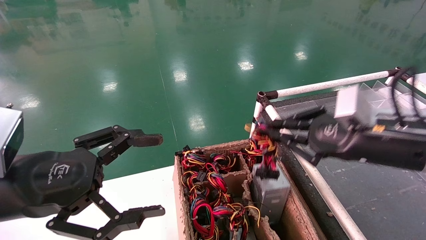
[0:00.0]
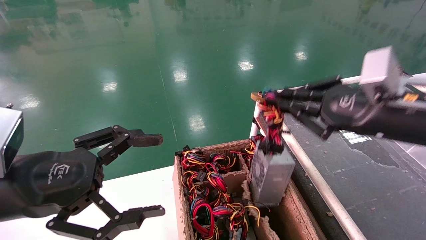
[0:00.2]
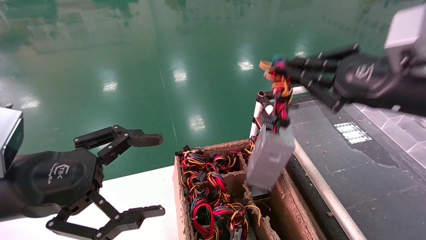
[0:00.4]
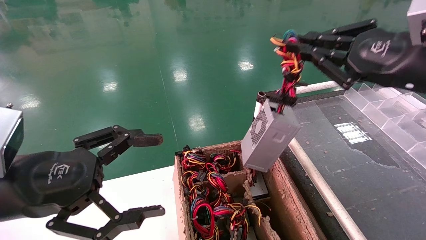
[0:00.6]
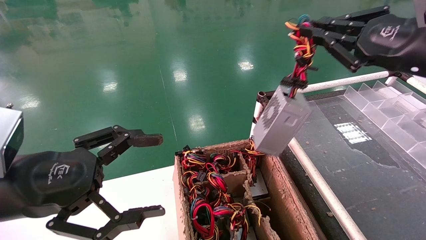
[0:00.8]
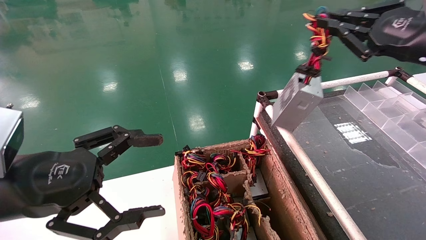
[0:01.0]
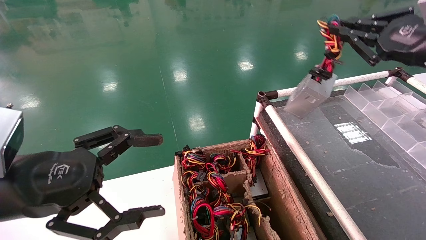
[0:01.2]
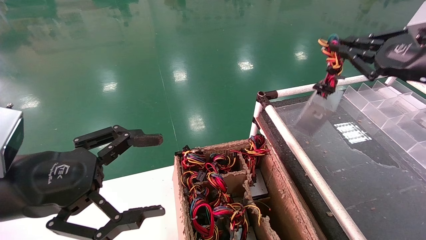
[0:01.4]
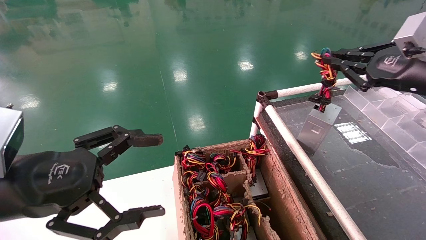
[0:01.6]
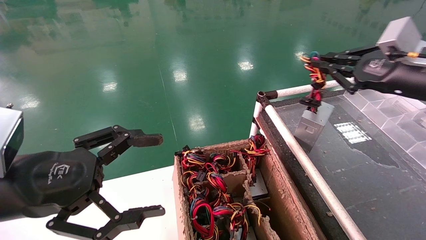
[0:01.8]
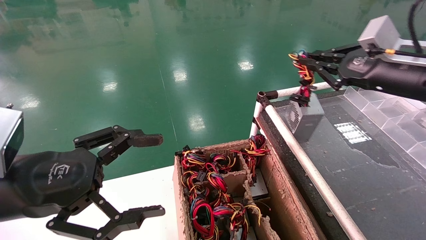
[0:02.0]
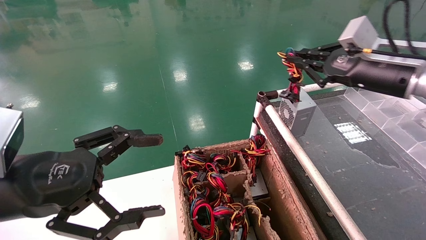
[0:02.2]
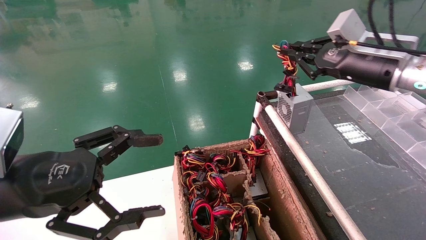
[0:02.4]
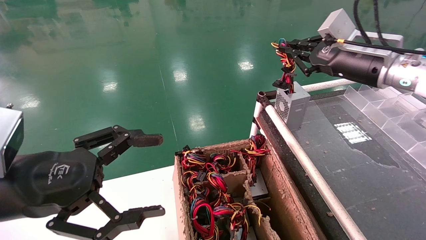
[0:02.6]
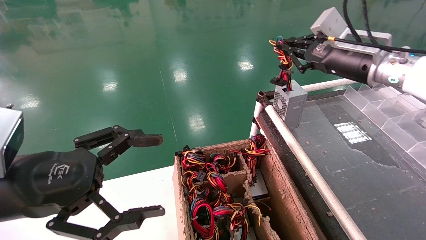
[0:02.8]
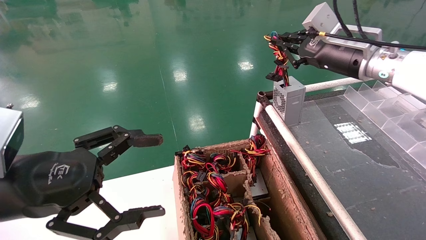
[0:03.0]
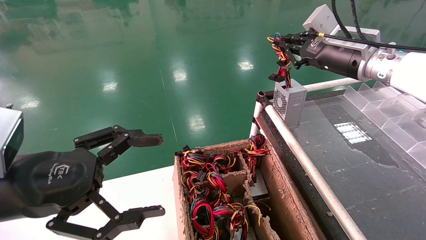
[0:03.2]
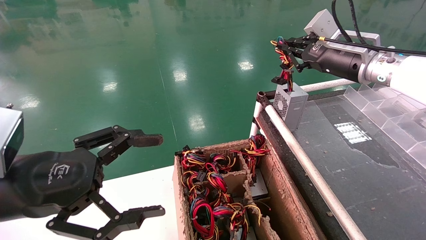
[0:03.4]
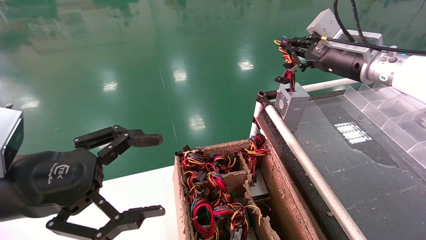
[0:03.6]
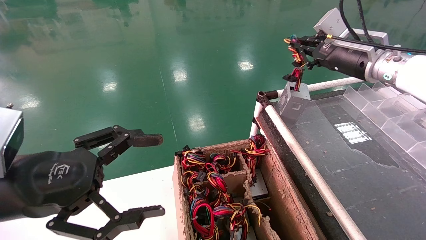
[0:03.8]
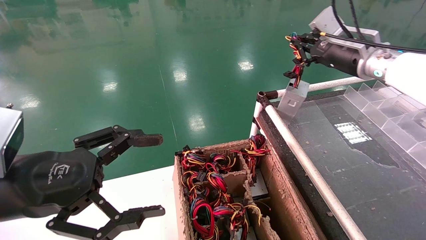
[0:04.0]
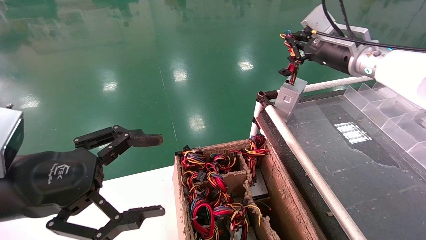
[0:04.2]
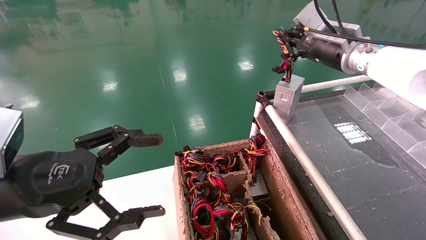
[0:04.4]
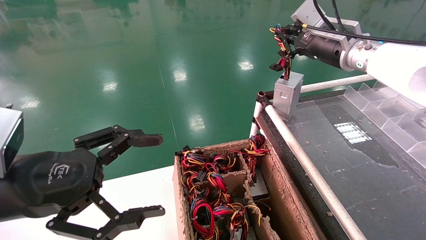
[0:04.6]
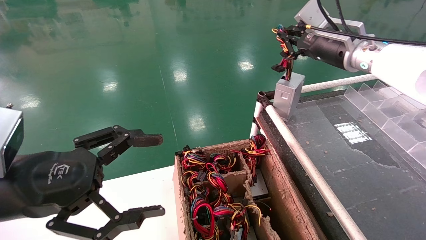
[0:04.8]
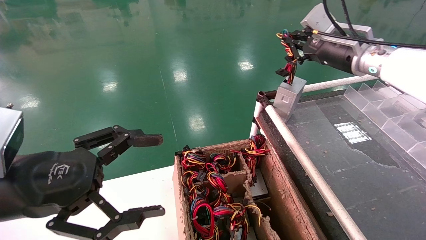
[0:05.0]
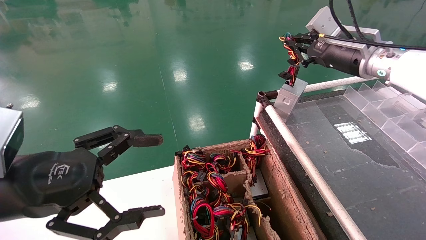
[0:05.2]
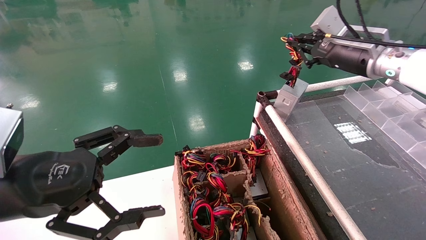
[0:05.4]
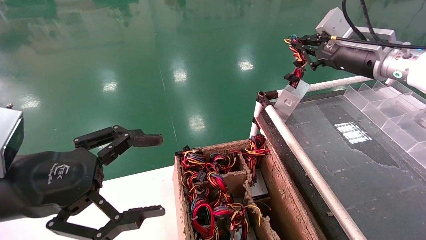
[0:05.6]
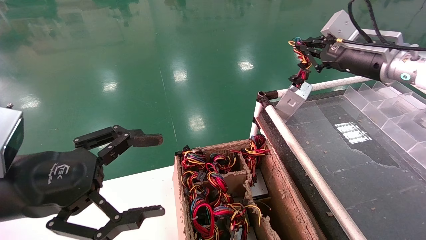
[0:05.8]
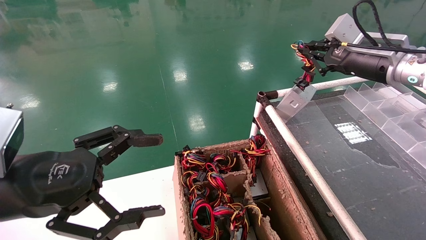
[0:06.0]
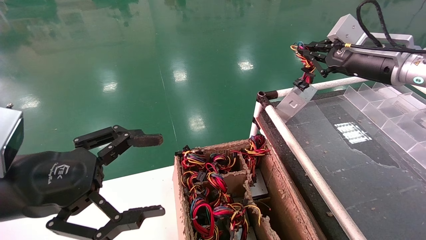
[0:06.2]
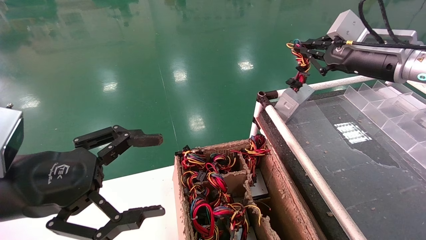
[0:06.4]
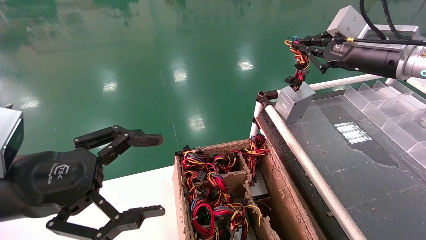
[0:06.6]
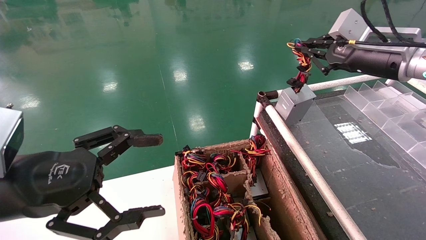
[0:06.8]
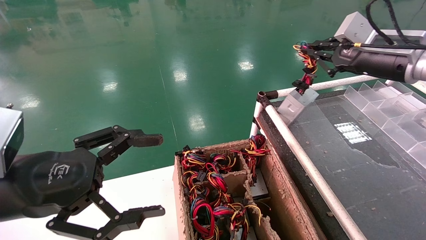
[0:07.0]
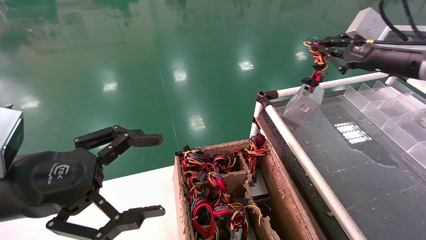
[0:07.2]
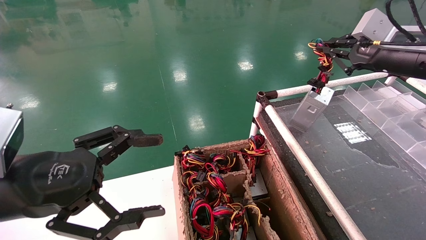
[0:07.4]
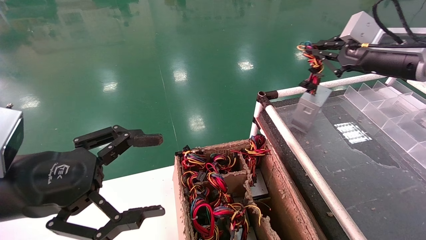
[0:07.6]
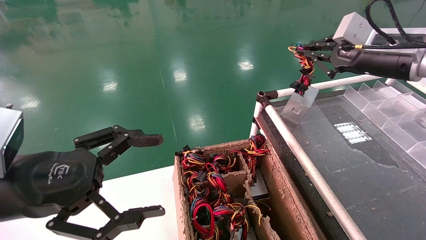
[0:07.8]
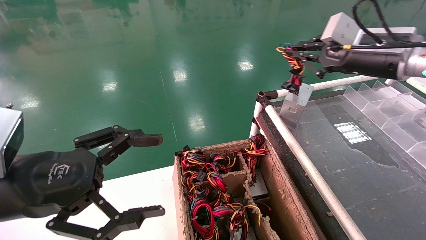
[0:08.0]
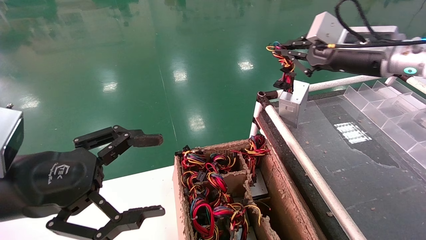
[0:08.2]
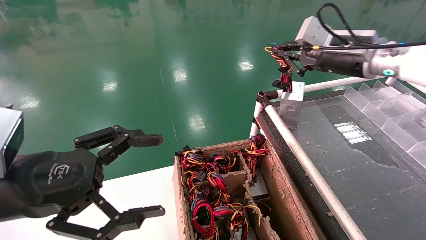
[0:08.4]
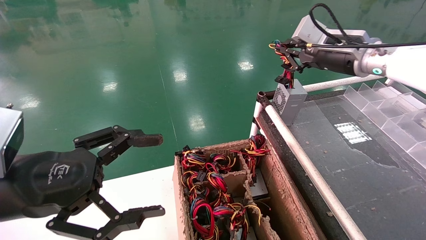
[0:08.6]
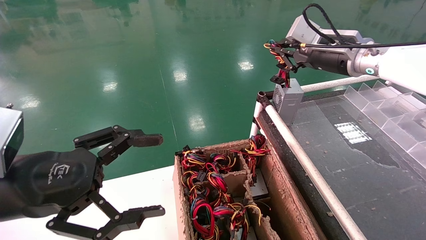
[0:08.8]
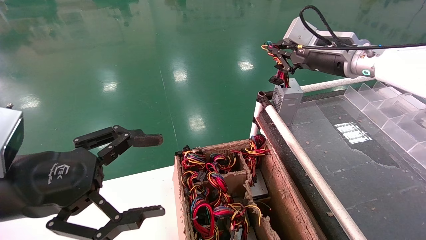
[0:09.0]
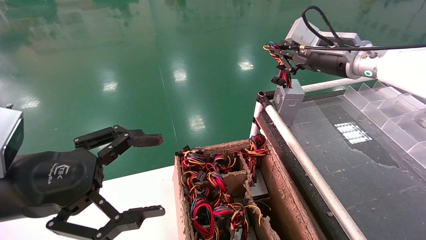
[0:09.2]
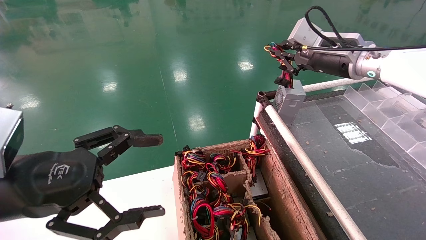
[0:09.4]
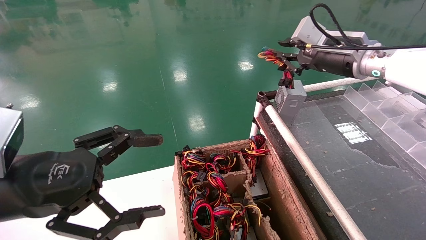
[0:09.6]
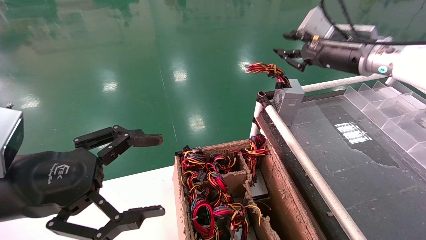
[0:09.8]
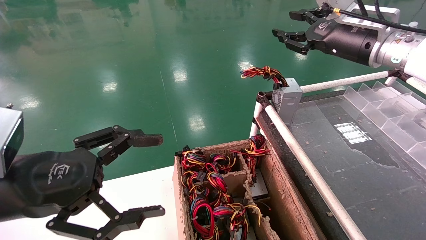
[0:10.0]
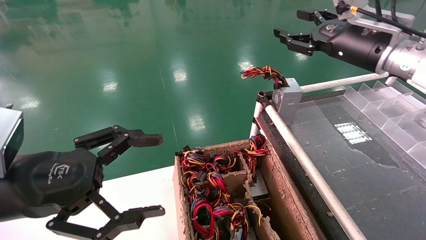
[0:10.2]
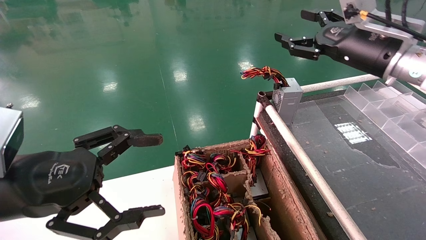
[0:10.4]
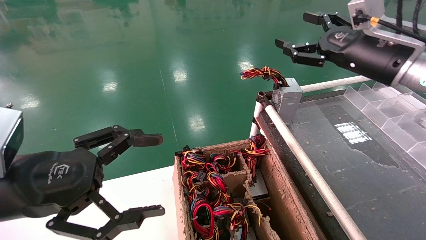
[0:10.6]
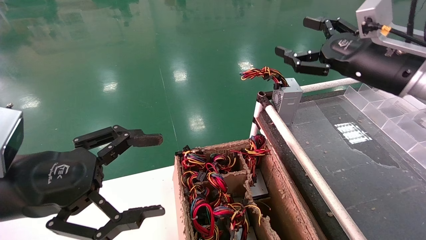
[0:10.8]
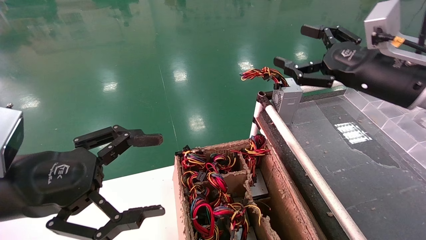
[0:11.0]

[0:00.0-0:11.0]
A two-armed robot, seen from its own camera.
Step, 0:00.0 to 0:09.4: Place the power supply on the operating table.
0:00.0 to 0:01.6: The right gripper heads to the right, upward and forward, covering about 15 cm.
0:01.6 to 0:03.2: The right gripper shifts approximately 15 cm to the left and forward.
0:03.2 to 0:04.8: There are only small adjustments of the grippers.
0:04.8 to 0:06.2: The right gripper moves to the right, roughly 5 cm.
0:06.2 to 0:07.8: The grippers make only small movements.
0:07.8 to 0:09.4: The right gripper heads to the left and forward, covering roughly 10 cm.
0:09.4 to 0:11.0: The right gripper shifts about 10 cm backward, and opens its fingers.

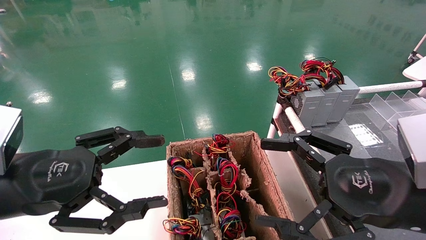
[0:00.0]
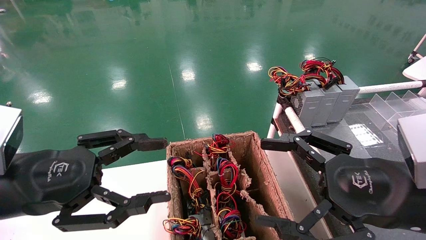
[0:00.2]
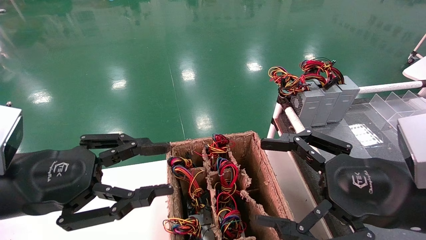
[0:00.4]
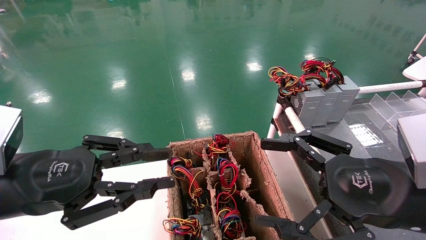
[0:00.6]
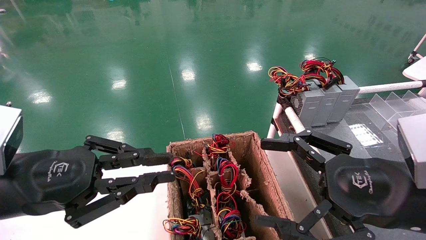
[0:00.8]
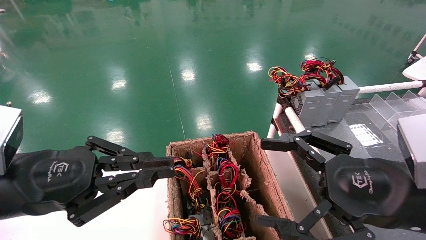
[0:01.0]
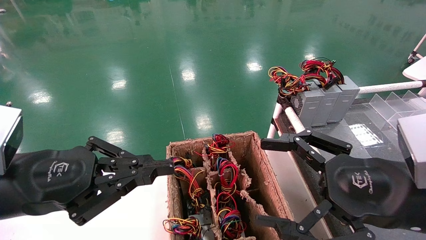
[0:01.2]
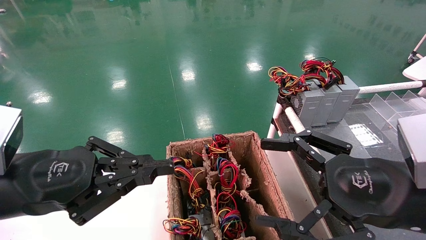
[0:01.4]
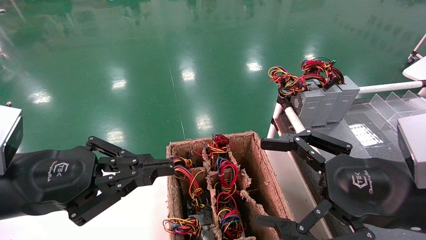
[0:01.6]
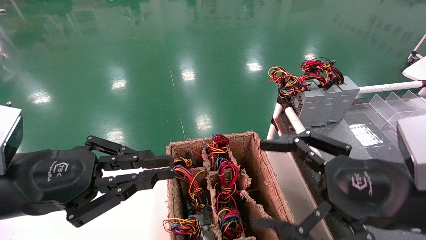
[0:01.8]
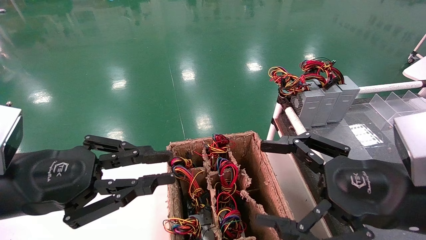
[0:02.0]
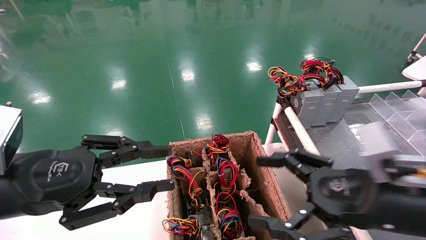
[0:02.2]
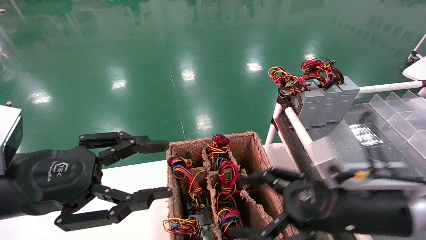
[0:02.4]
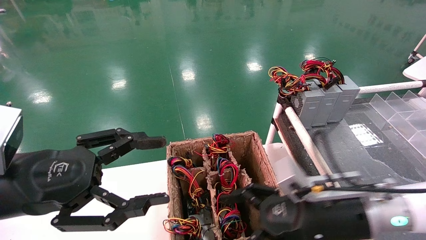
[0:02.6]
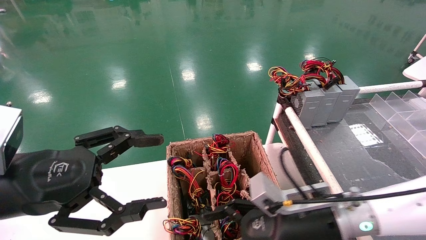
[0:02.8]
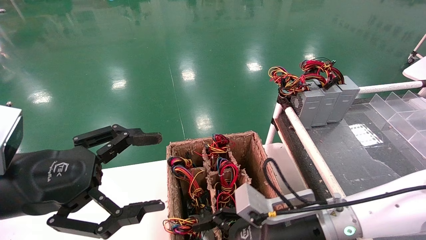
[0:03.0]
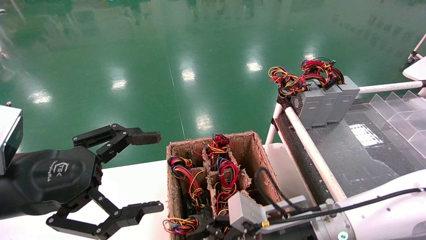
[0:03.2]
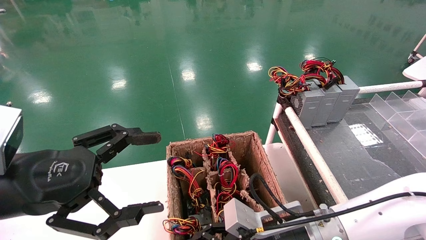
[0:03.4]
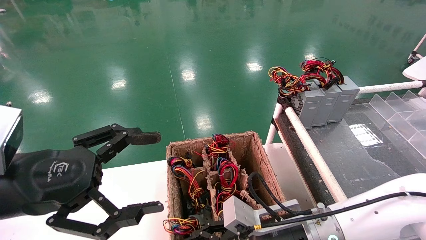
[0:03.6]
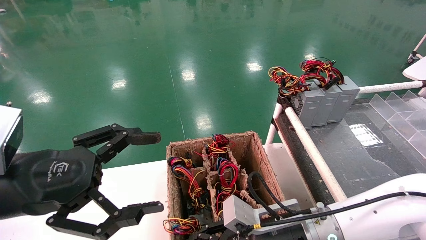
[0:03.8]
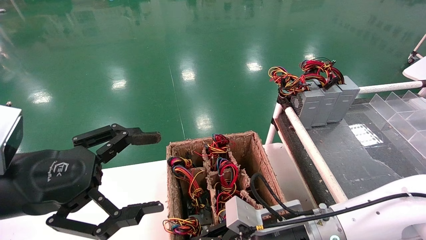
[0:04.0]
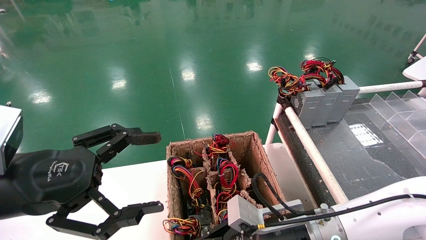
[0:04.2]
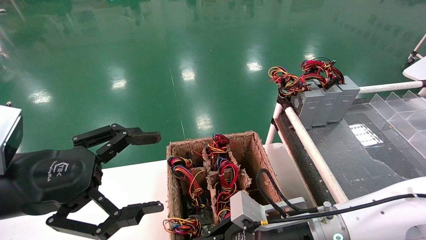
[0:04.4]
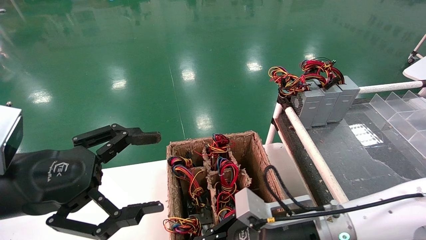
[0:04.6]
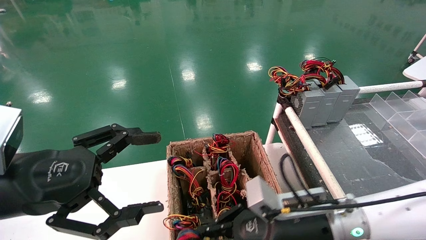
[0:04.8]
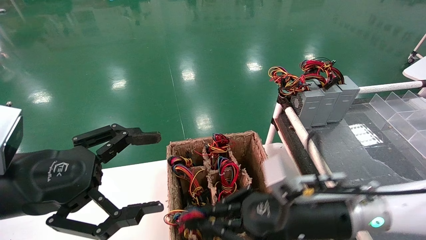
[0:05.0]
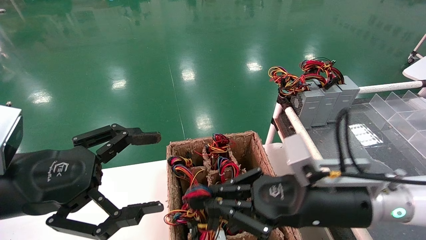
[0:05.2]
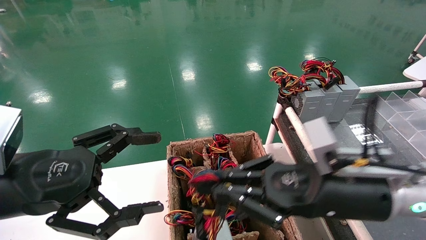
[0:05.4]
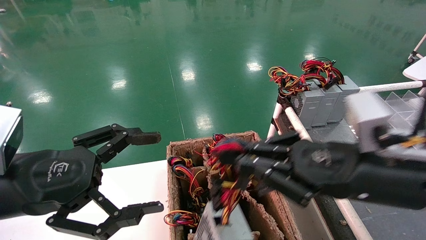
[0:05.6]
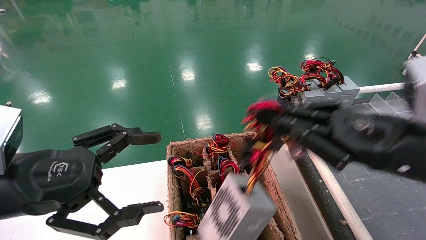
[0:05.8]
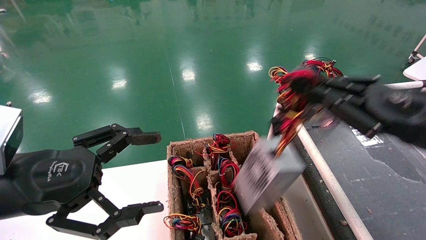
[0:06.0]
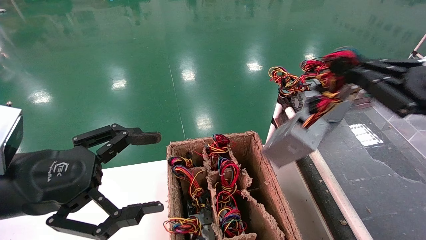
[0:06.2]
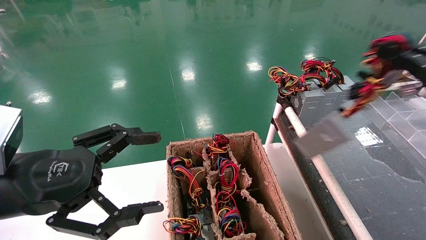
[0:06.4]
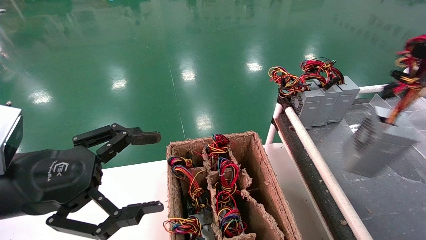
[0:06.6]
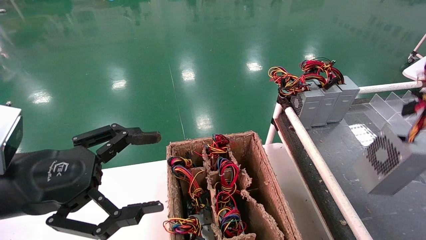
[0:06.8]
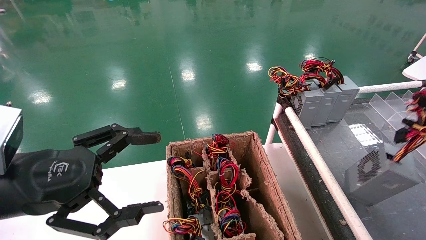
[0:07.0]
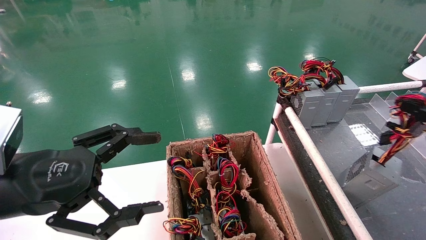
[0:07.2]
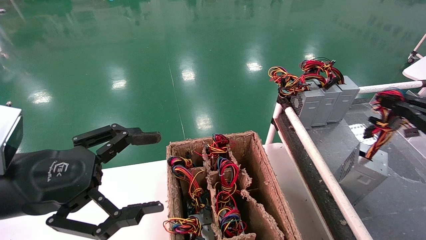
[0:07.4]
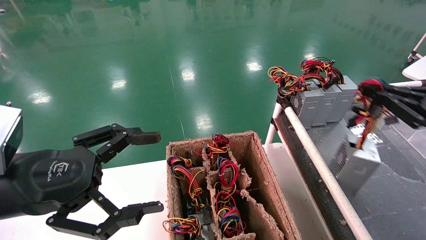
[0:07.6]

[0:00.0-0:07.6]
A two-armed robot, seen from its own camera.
Step, 0:01.4 to 0:04.2: Grab and lift the power supply from the large box.
0:00.0 to 0:01.6: The left gripper closes its fingers.
0:01.6 to 0:03.0: The left gripper opens its fingers. Meanwhile the right gripper moves downward, to the left and forward, about 20 cm.
0:03.0 to 0:04.6: The right gripper closes.
0:04.6 to 0:06.0: The right gripper is displaced to the right and upward by some 25 cm.
0:06.0 to 0:07.6: The right gripper goes some 10 cm to the right.
